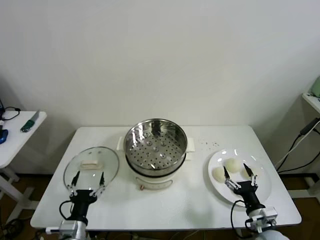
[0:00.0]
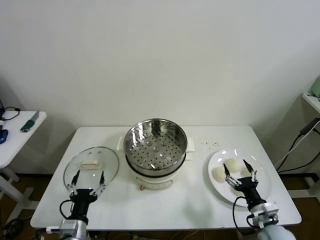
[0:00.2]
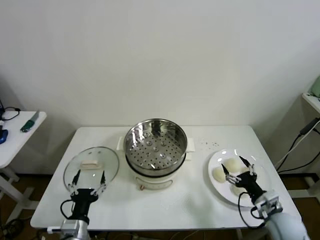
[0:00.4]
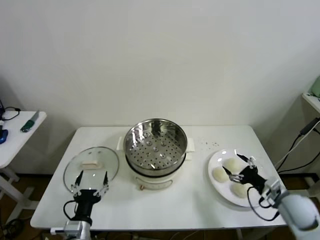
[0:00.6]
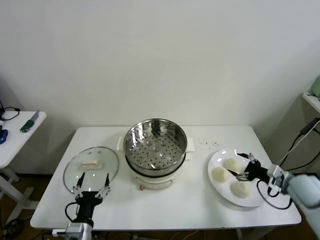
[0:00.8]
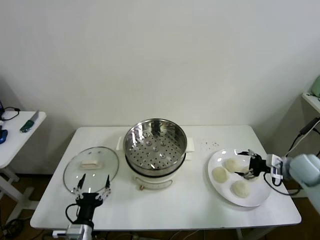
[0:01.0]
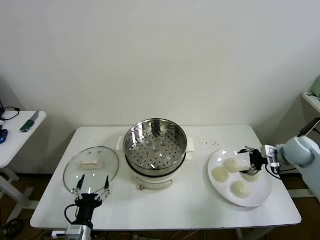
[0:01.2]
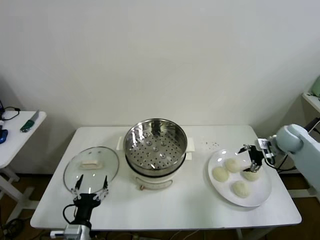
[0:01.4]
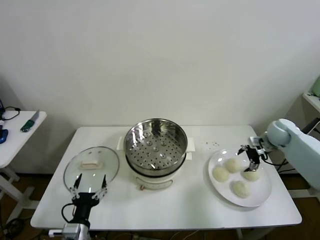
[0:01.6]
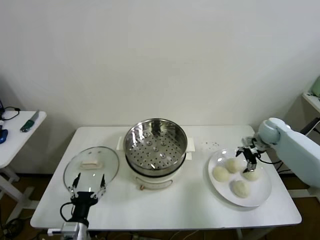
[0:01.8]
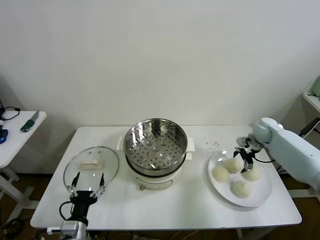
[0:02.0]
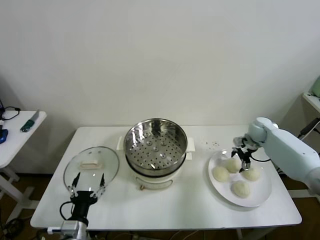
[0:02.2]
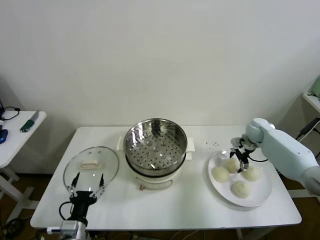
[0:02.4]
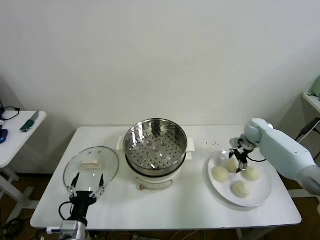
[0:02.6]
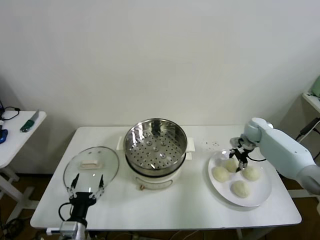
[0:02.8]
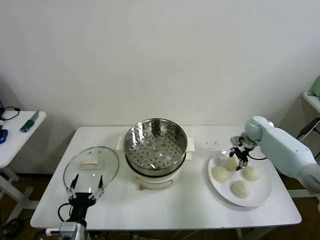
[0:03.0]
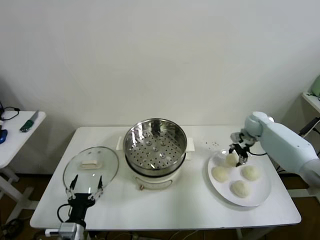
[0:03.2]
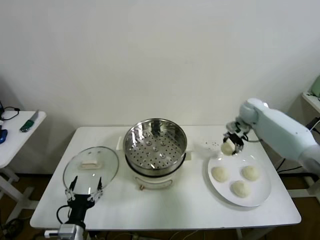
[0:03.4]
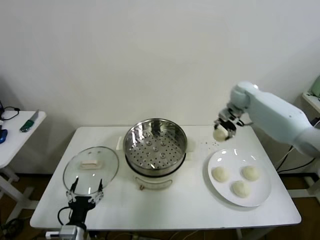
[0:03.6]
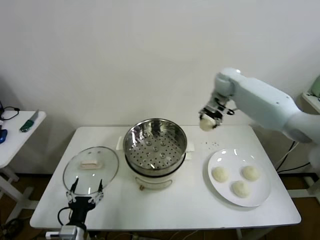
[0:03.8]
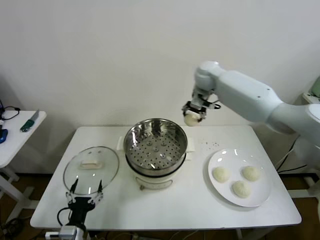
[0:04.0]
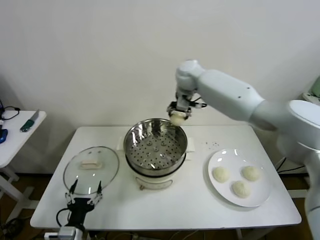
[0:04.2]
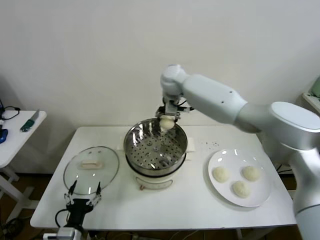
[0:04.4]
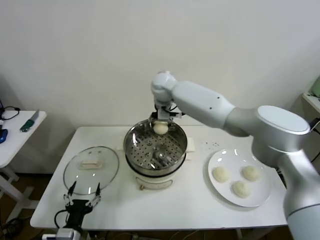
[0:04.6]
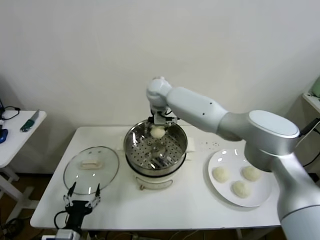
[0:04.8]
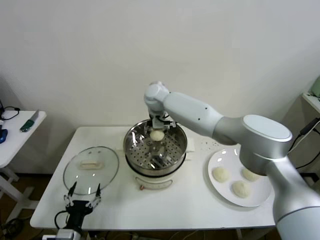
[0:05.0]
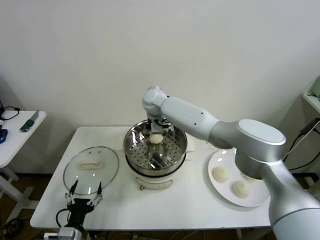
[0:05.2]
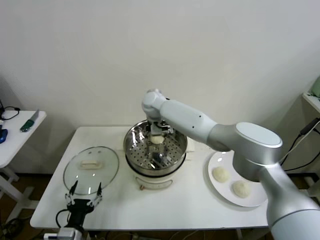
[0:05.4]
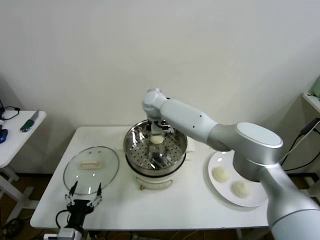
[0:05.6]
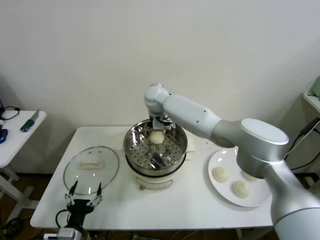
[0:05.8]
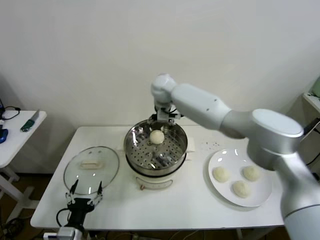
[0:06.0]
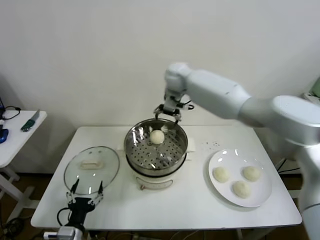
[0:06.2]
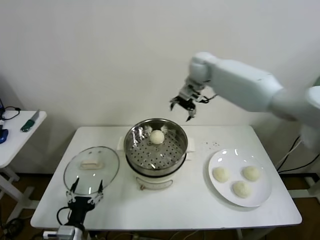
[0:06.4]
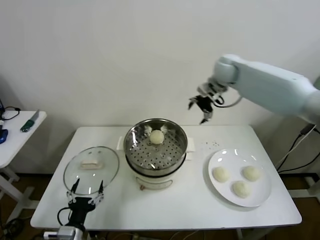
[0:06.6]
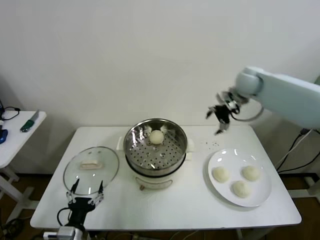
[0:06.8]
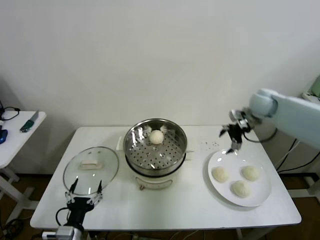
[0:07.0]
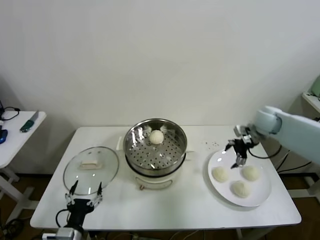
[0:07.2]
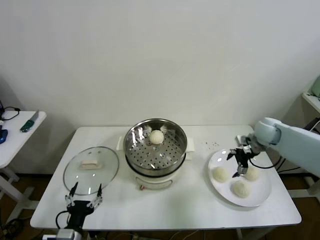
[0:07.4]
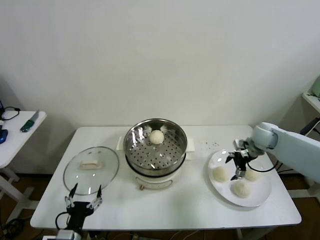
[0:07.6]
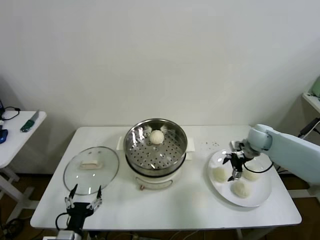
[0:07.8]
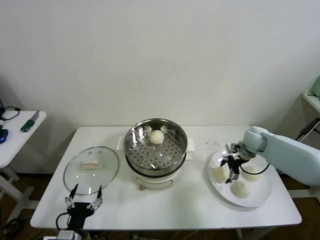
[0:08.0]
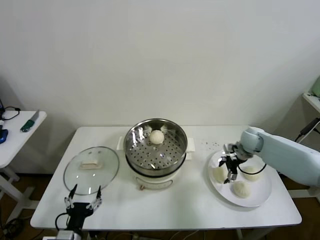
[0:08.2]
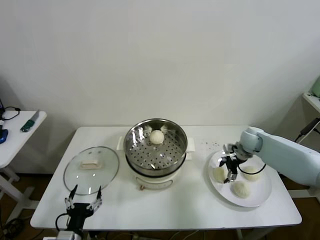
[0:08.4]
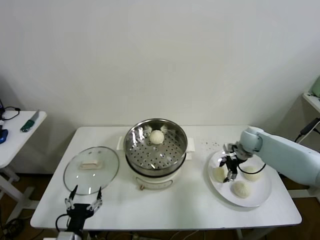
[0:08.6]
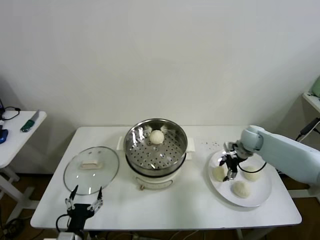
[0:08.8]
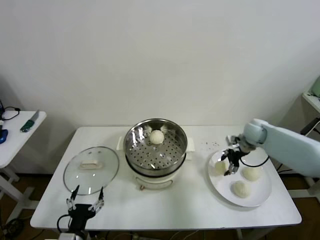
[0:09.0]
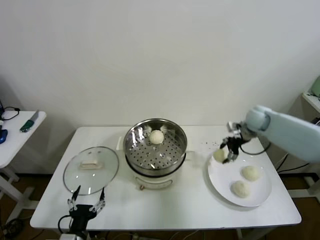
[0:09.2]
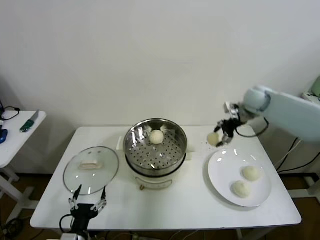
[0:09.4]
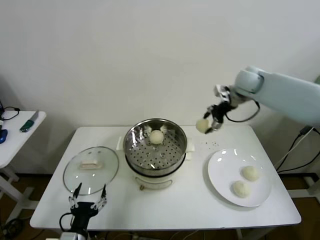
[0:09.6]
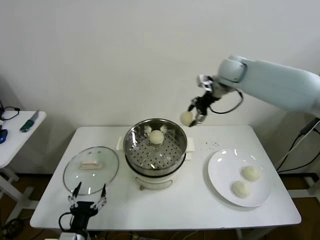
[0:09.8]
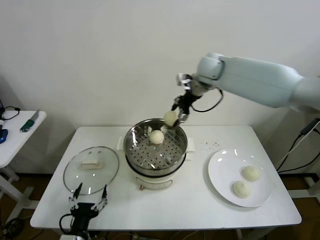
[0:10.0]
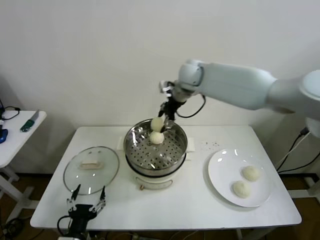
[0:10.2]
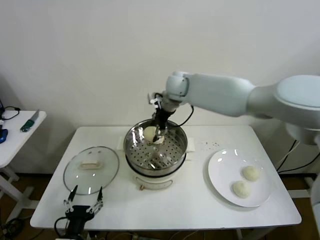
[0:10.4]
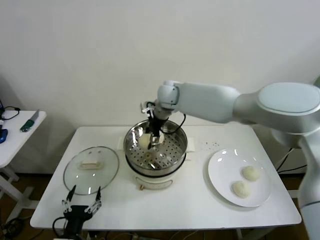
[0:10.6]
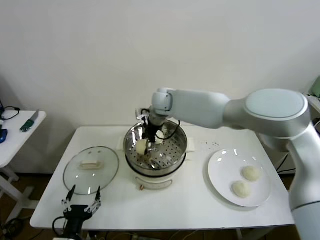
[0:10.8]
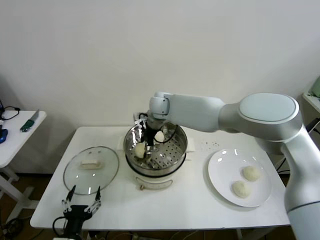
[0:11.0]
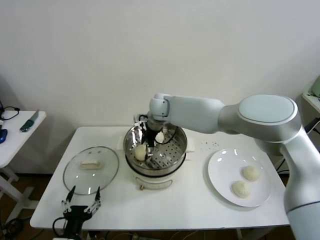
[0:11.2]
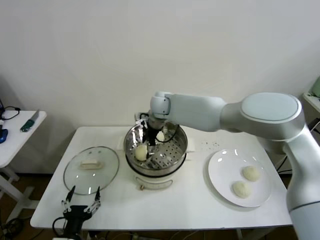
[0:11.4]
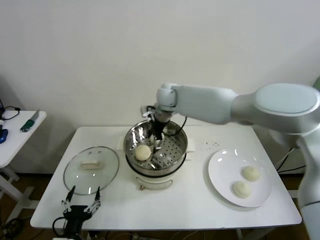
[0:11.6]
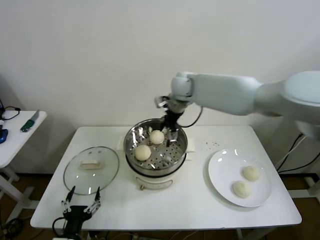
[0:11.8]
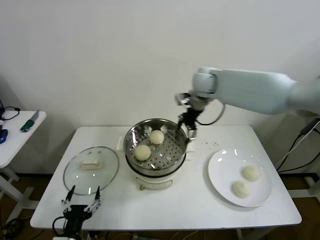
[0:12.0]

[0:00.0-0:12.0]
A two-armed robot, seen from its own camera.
Step, 0:00.0 to 0:02.4: Grasp the baozi in the plate with right gripper.
Step, 0:02.6 to 0:05.2: Place the baozi on the steamer with right gripper.
Step, 0:05.4 to 0:08.4: Grasp the baozi in the plate with right gripper.
Step, 0:08.6 to 0:11.0: Place the baozi on the steamer with right gripper.
0:01.6 to 0:03.0: The right gripper travels forward by some 5 cm, and closes its fingers.
0:03.0 to 0:04.4: The right gripper heads to the left and upward, covering some 40 cm.
0:04.4 to 0:06.0: The right gripper goes downward and returns, approximately 10 cm each way, and opens its fingers.
0:06.0 to 0:07.6: The right gripper heads to the right and downward, covering about 40 cm.
0:07.6 to 0:09.0: The right gripper closes up.
0:09.0 to 0:10.4: The right gripper travels to the left and upward by about 35 cm.
0:10.4 to 0:12.0: The right gripper heads to the right, covering approximately 10 cm, and opens up.

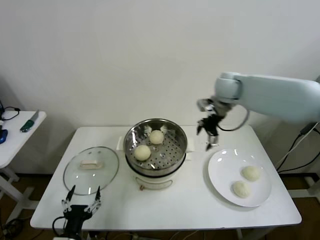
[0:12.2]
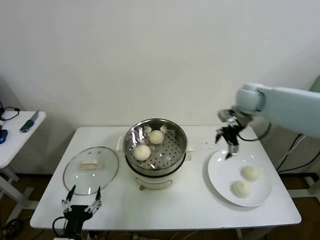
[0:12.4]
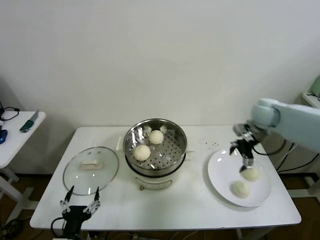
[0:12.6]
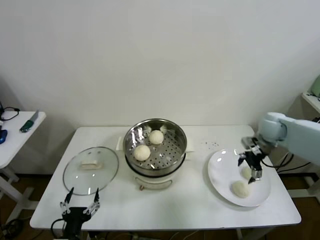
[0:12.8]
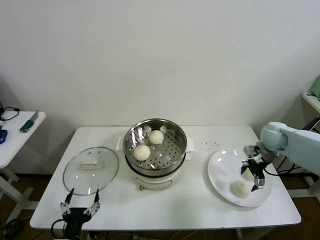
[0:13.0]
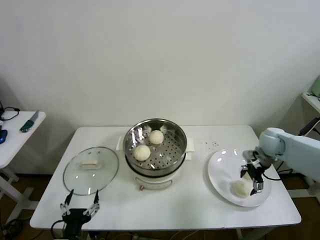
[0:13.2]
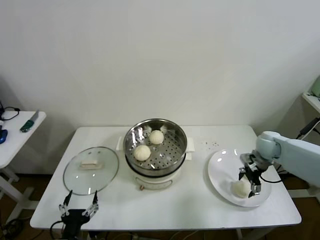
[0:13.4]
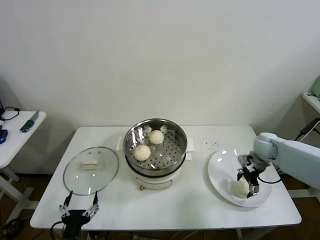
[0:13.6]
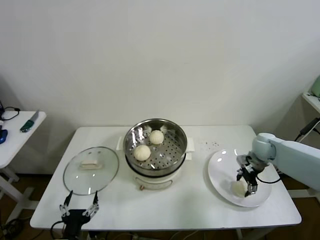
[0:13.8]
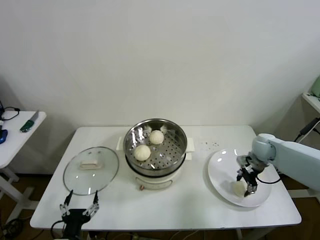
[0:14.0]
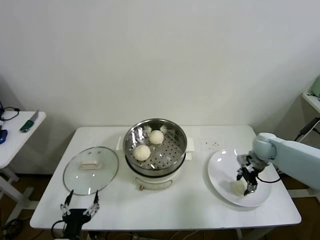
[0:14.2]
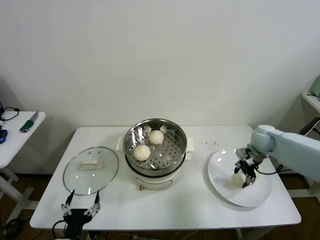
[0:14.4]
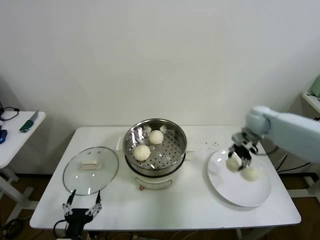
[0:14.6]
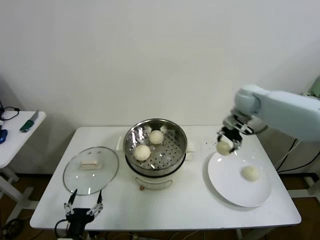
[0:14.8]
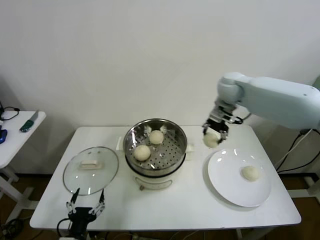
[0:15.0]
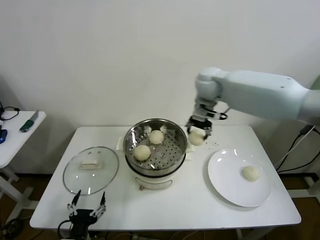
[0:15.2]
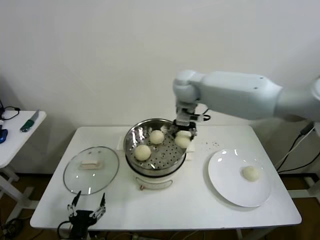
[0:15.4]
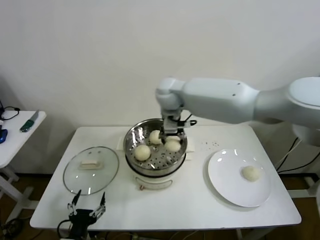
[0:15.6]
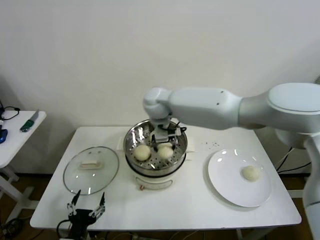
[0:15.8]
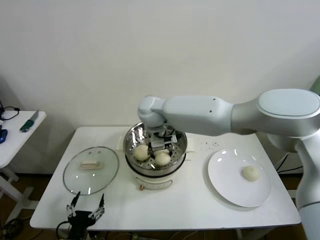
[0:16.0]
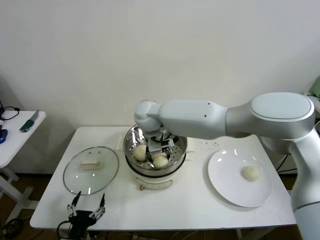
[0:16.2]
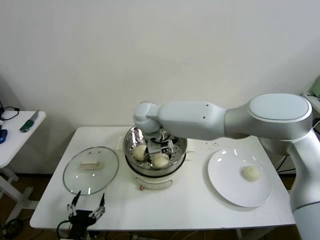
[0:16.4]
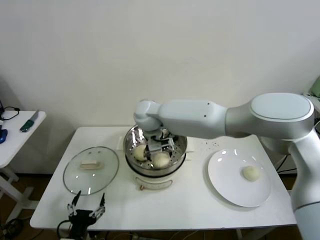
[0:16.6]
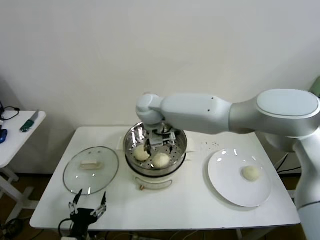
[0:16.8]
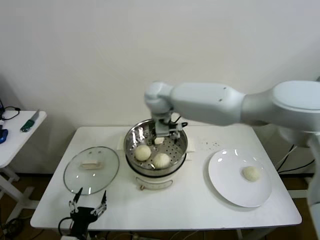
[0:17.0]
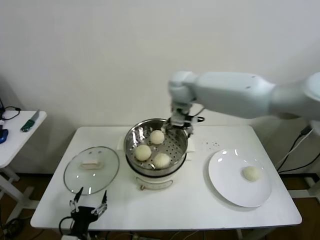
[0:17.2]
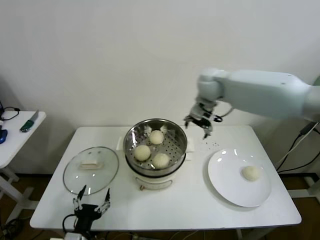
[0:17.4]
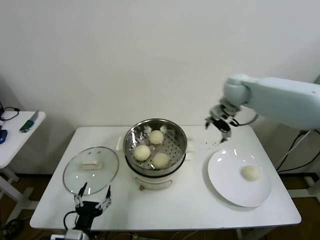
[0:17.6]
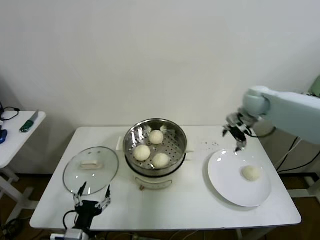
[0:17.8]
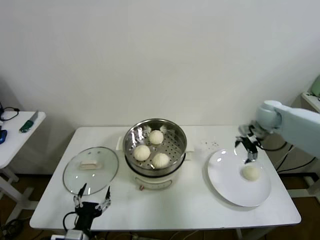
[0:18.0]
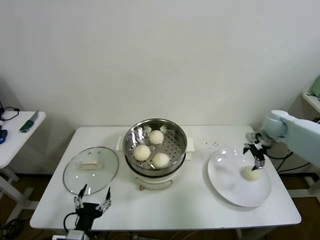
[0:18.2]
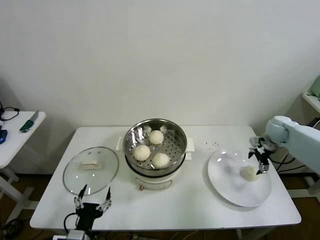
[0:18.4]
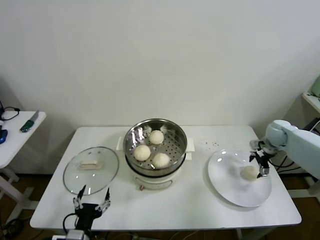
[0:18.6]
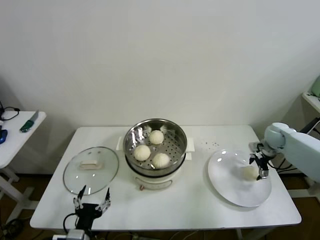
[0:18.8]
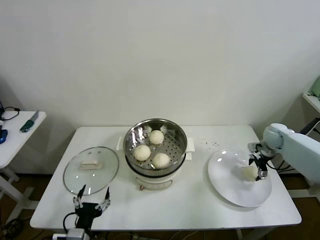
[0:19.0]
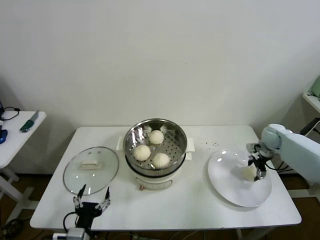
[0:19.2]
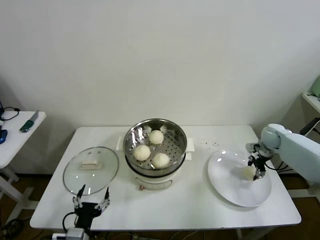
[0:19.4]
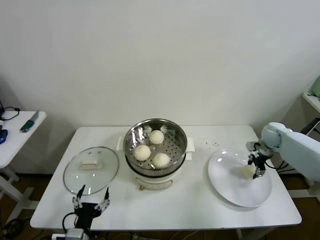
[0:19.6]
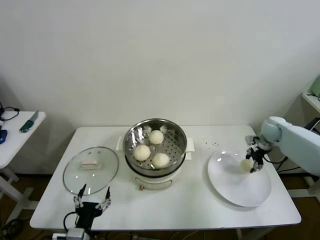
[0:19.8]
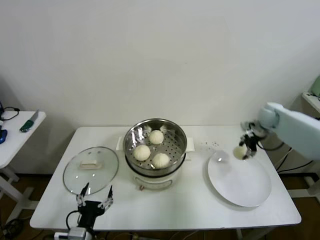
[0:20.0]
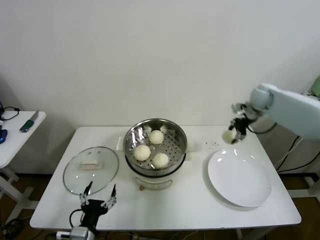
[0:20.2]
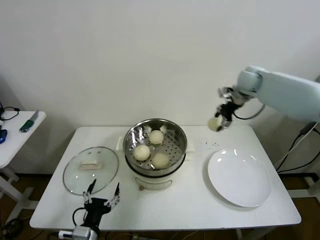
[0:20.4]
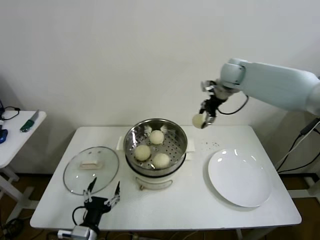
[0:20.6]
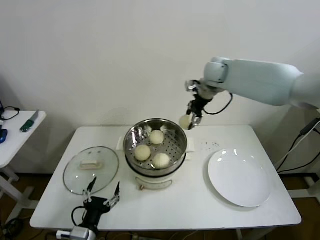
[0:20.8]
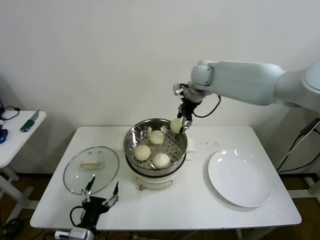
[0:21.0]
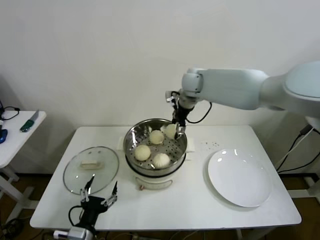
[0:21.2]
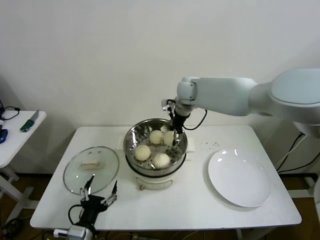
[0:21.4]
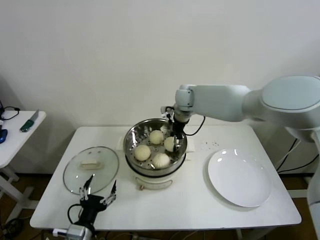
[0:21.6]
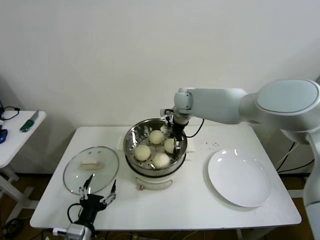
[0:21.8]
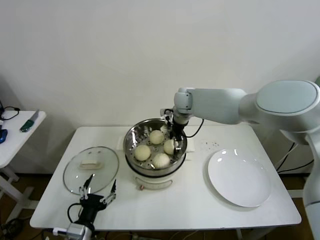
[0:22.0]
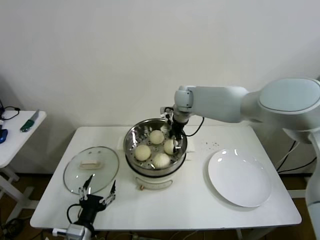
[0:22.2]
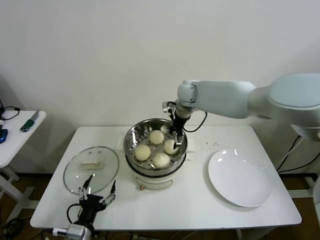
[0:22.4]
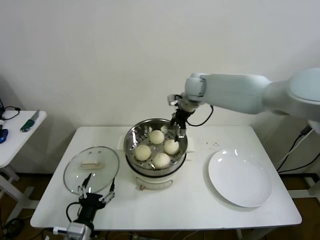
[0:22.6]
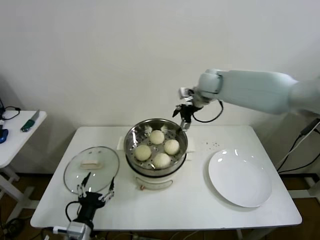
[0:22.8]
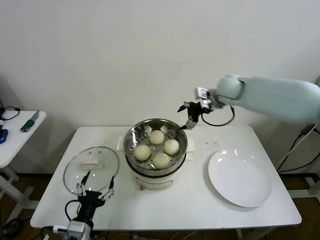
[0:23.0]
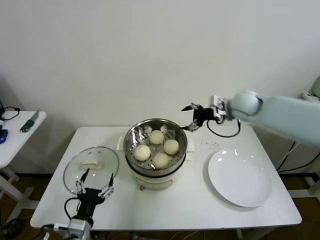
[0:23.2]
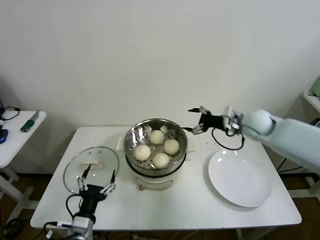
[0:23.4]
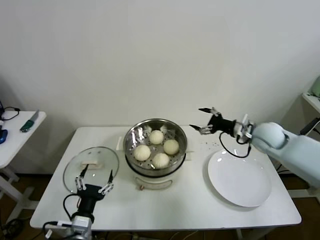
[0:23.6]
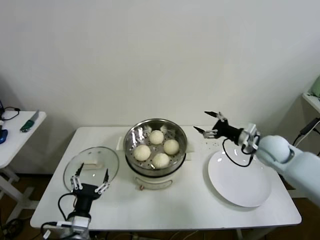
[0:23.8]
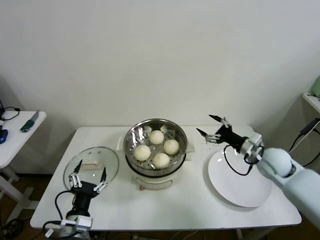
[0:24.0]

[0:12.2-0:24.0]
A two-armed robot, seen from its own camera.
Step, 0:12.2 to 0:13.6: Grasp the baozi in the plate with right gripper.
Step, 0:14.0 to 0:16.2: Place the baozi on the steamer with right gripper.
Step, 0:16.4 to 0:19.2: Grasp the baozi in the plate with right gripper.
Step, 0:19.4 to 0:21.8: Place the baozi on the steamer with right gripper.
0:12.2 to 0:13.6: The right gripper travels downward and to the right by about 30 cm.
0:13.6 to 0:15.2: The right gripper goes some 35 cm to the left and upward, and closes up.
0:15.2 to 0:16.6: The right gripper goes approximately 20 cm to the left and downward, and opens.
0:16.6 to 0:18.2: The right gripper heads to the right, covering roughly 50 cm.
0:18.2 to 0:19.6: The right gripper travels downward by roughly 10 cm, and closes up.
0:19.6 to 0:21.0: The right gripper is displaced to the left and upward by roughly 40 cm.
0:21.0 to 0:22.6: The right gripper opens.
0:22.6 to 0:24.0: The right gripper heads to the right, backward and downward, covering about 35 cm.
